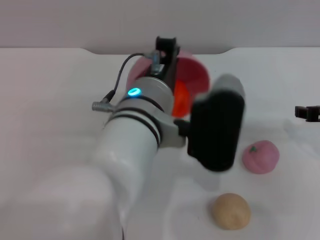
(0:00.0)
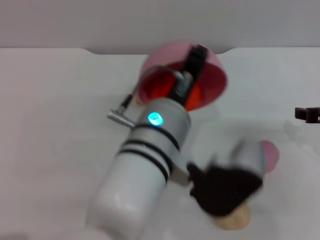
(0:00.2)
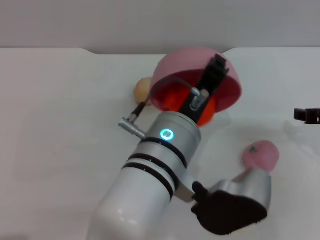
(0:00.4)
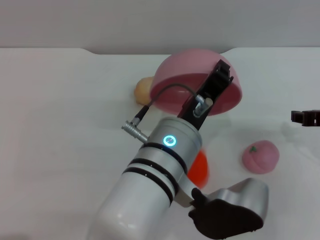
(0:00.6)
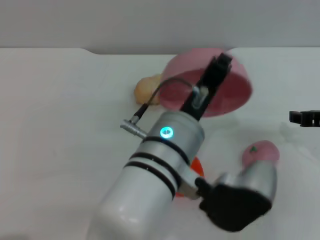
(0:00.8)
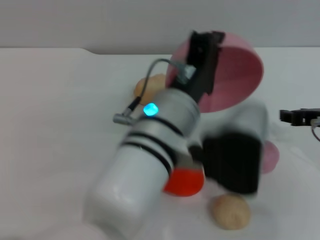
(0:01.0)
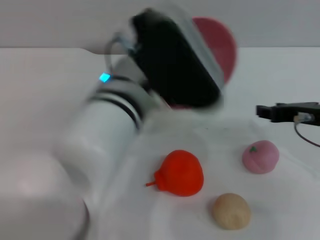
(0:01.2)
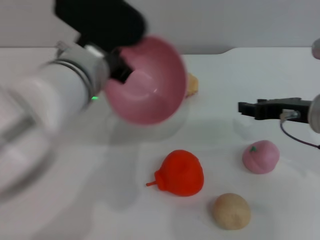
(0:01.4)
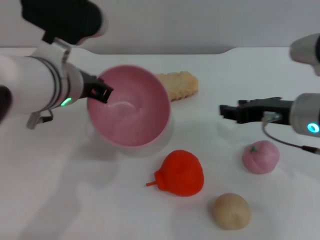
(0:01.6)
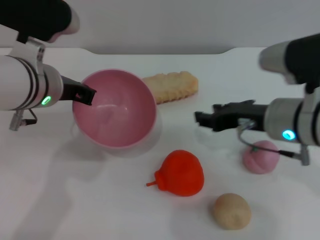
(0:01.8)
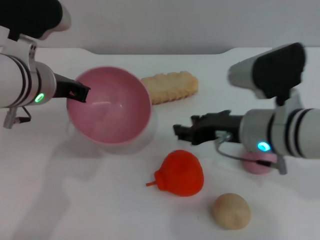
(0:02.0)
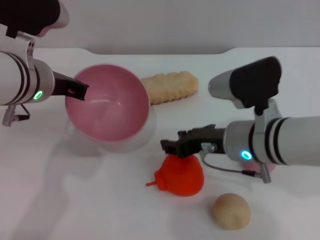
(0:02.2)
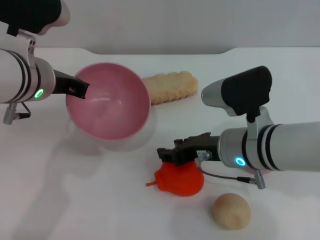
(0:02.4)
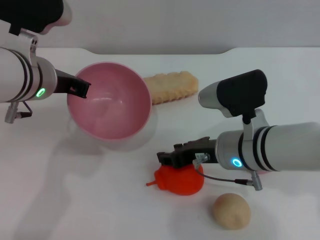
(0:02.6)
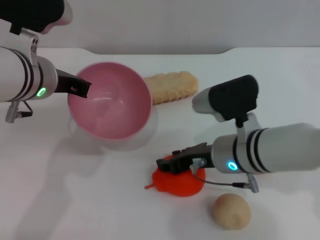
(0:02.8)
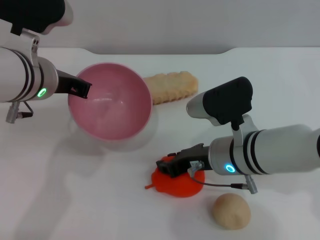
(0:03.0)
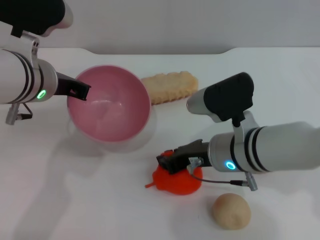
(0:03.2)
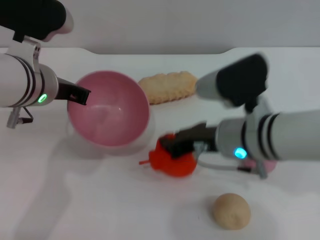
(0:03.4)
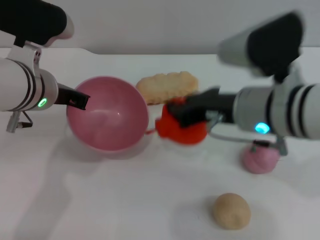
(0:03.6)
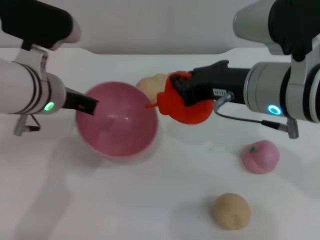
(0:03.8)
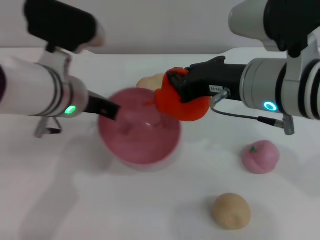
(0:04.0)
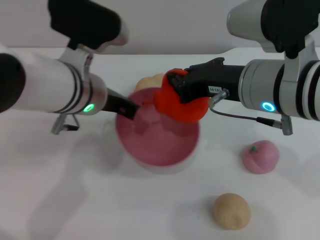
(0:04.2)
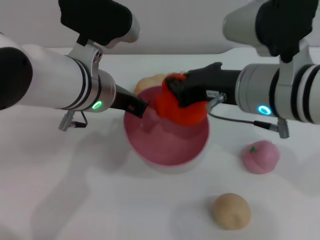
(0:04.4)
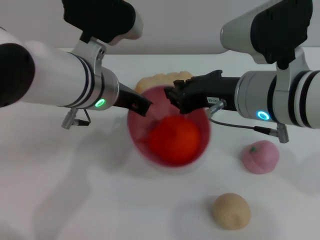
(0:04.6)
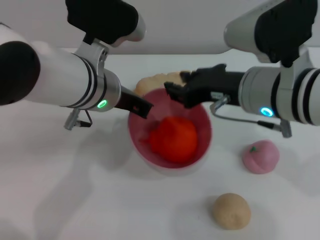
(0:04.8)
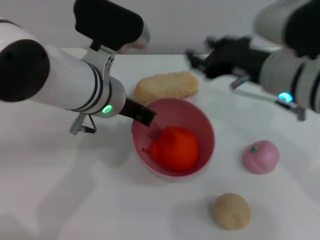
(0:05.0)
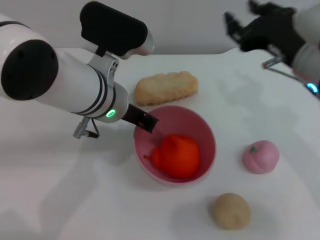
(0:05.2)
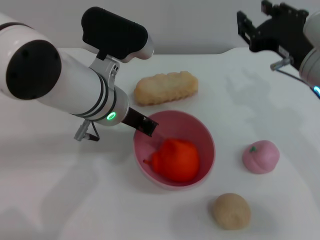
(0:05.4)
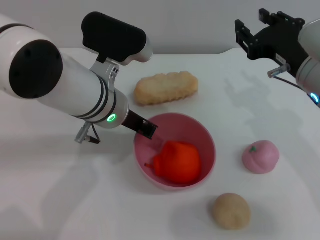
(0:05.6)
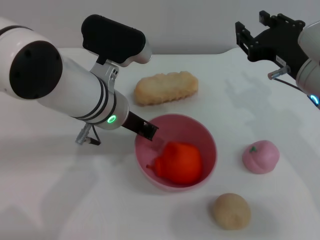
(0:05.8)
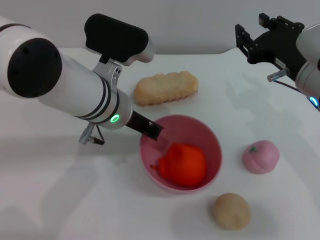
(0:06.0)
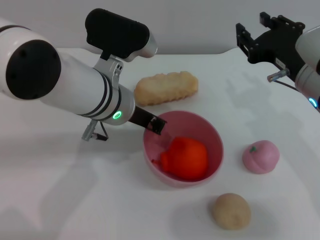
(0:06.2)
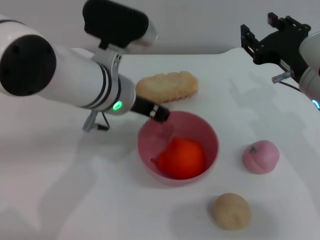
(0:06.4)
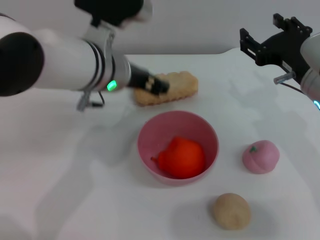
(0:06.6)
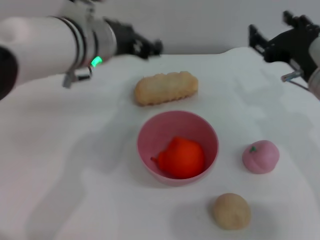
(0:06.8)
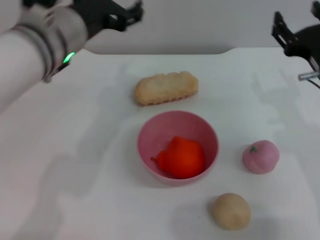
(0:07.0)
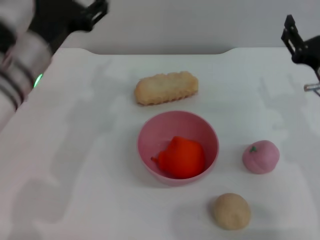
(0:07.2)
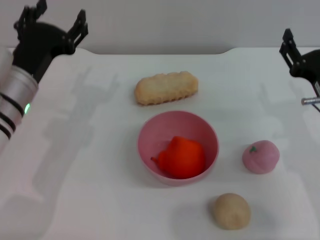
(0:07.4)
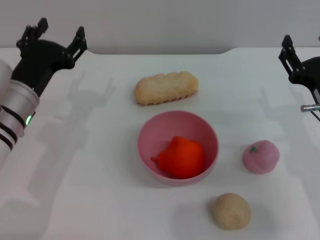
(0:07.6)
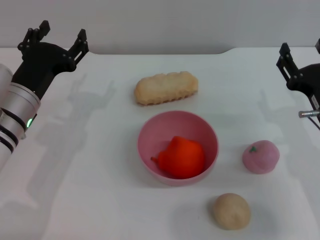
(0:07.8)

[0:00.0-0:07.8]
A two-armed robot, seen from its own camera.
Task of the whole recording: put the orange into the pink bowl and pour it out repeatedly.
Step, 0:00.8 to 0:03.2: Pick up the orange with the right gripper.
Step, 0:03.6 to 0:04.8: Place the orange into the bowl.
Step, 0:05.0 to 0:06.4: Place the bowl on the table.
0:00.0 to 0:01.6: The left gripper travels to the left and forward by some 10 cm. The right gripper goes roughly 10 cm to the left.
0:01.6 to 0:03.2: The right gripper shifts some 10 cm to the left and downward.
0:03.2 to 0:04.6: The left gripper is displaced to the right by approximately 5 cm. The right gripper shifts roughly 10 cm upward.
0:04.6 to 0:06.2: The right gripper goes approximately 5 cm to the right, and opens up.
0:06.2 to 0:07.8: The left gripper moves to the left and downward, approximately 15 cm, and opens up; the right gripper is displaced downward by some 10 cm.
